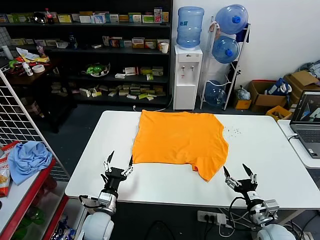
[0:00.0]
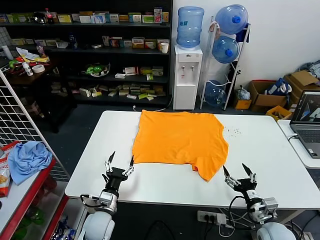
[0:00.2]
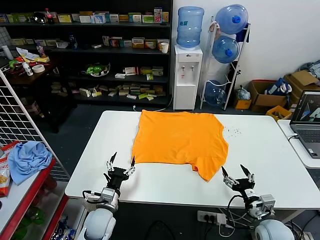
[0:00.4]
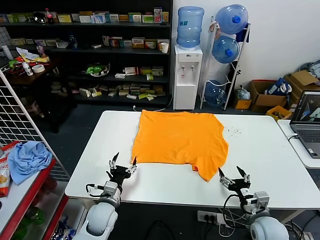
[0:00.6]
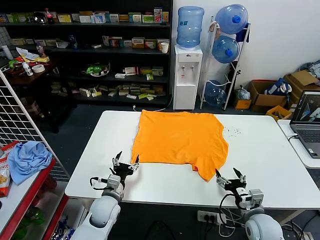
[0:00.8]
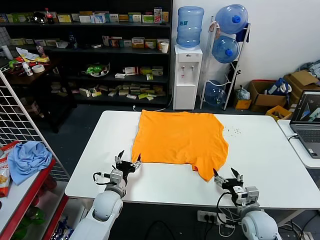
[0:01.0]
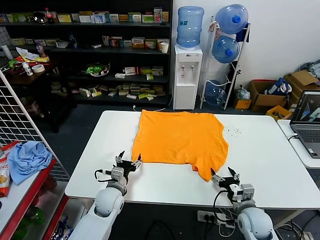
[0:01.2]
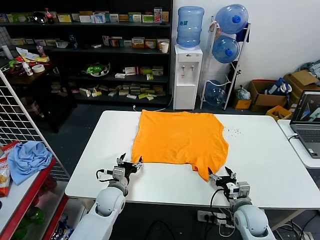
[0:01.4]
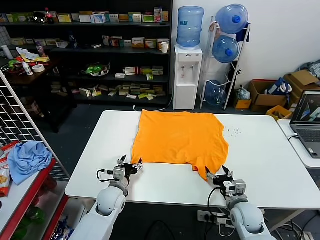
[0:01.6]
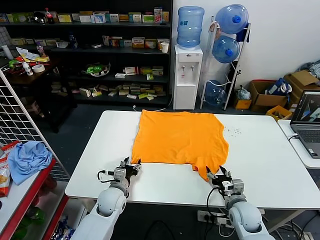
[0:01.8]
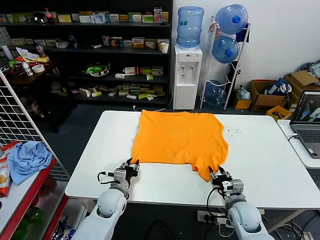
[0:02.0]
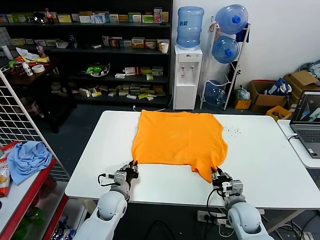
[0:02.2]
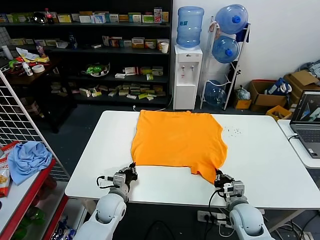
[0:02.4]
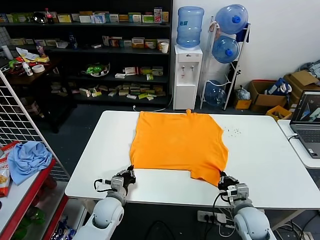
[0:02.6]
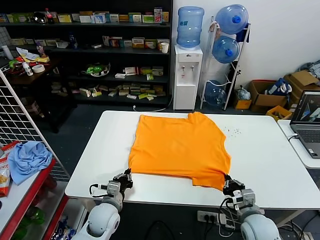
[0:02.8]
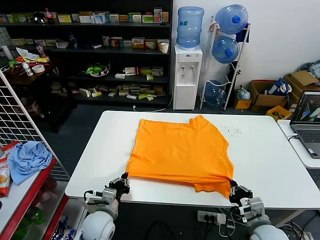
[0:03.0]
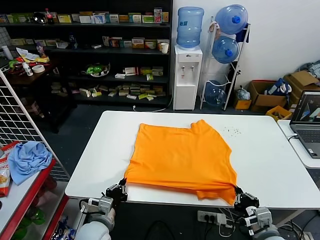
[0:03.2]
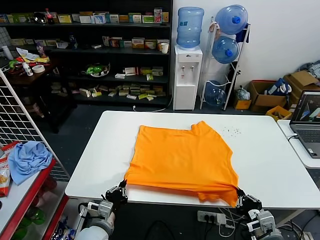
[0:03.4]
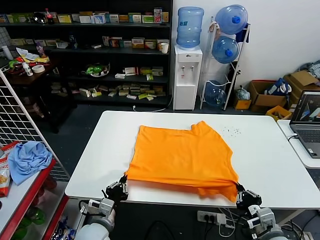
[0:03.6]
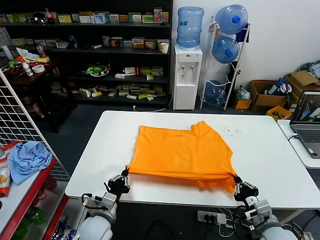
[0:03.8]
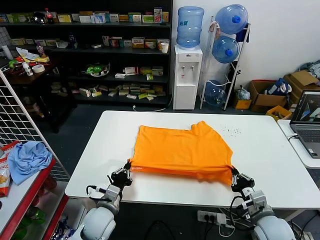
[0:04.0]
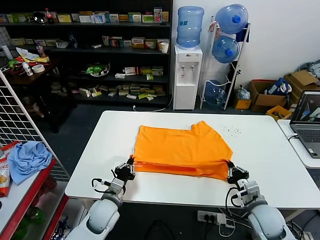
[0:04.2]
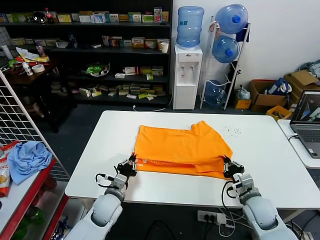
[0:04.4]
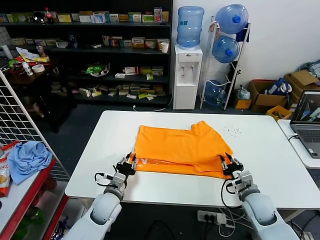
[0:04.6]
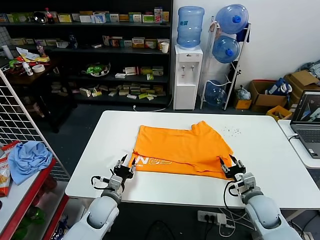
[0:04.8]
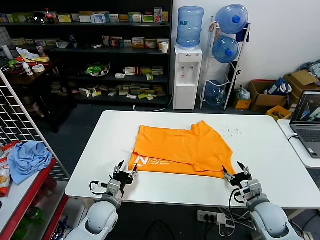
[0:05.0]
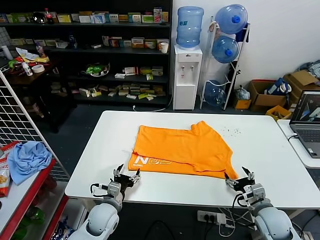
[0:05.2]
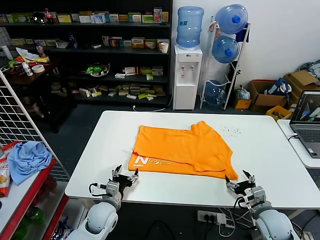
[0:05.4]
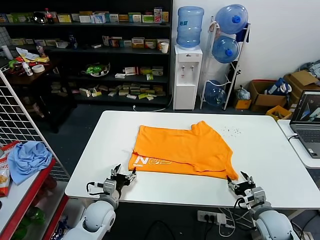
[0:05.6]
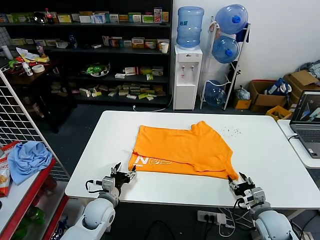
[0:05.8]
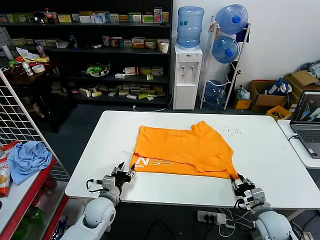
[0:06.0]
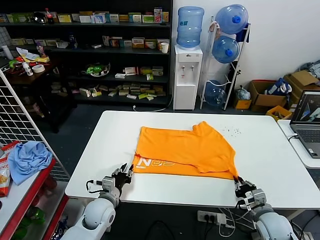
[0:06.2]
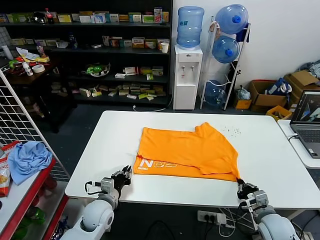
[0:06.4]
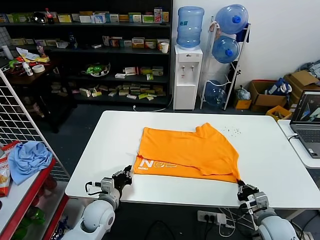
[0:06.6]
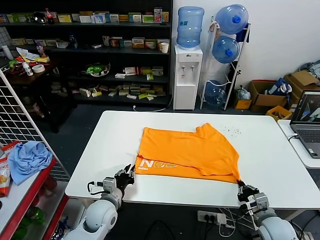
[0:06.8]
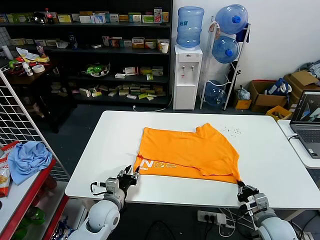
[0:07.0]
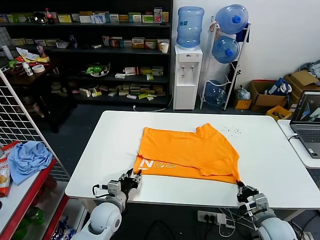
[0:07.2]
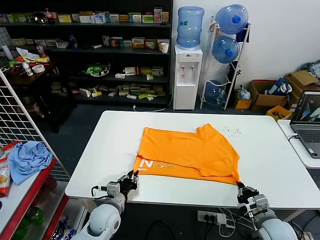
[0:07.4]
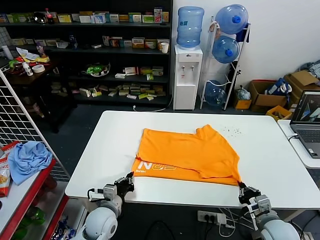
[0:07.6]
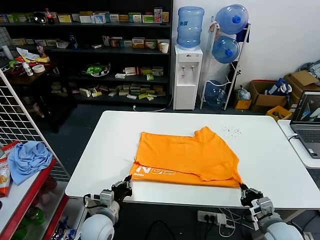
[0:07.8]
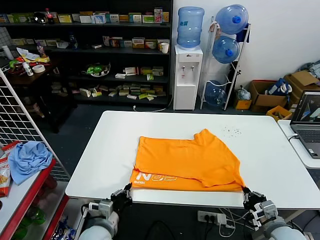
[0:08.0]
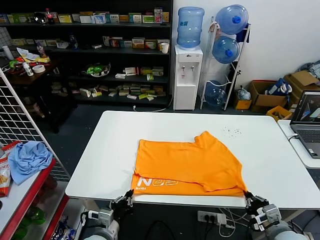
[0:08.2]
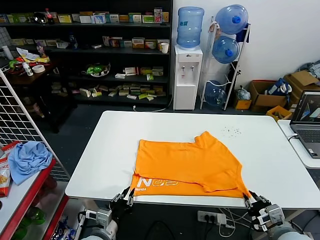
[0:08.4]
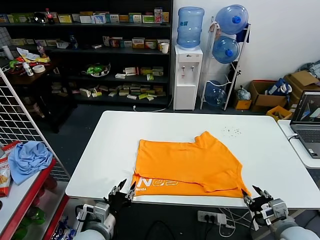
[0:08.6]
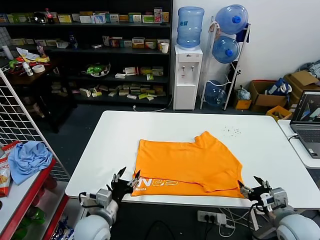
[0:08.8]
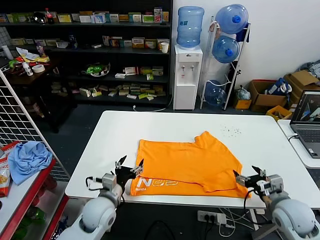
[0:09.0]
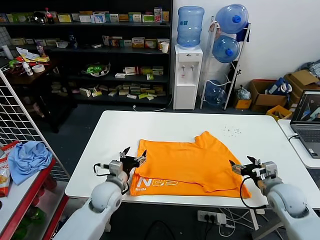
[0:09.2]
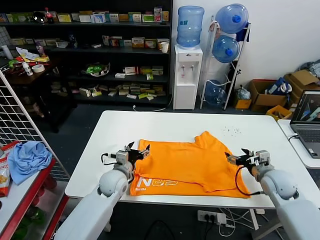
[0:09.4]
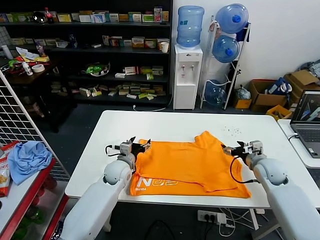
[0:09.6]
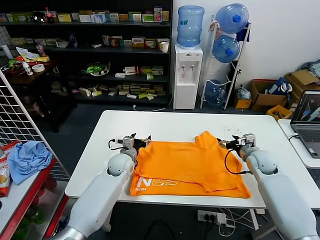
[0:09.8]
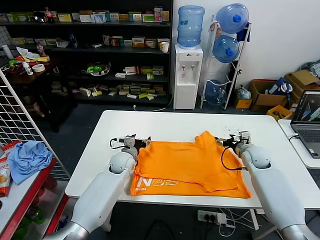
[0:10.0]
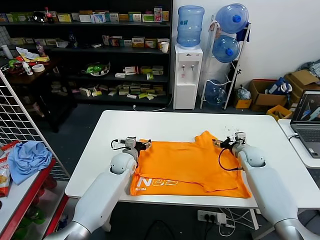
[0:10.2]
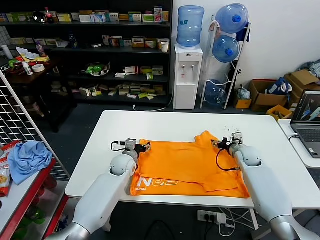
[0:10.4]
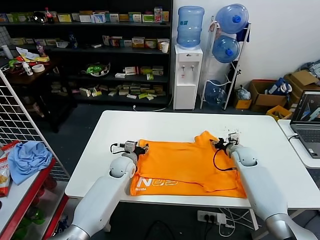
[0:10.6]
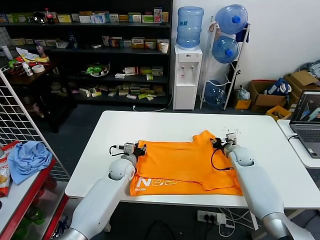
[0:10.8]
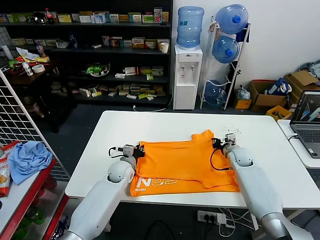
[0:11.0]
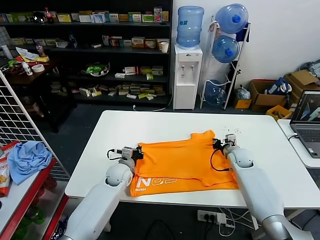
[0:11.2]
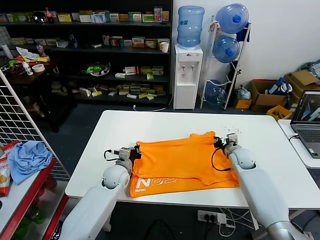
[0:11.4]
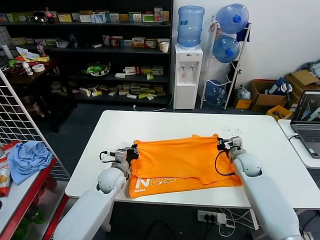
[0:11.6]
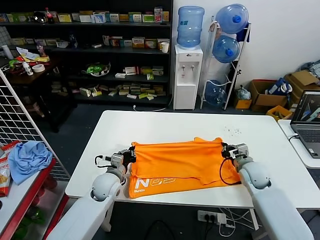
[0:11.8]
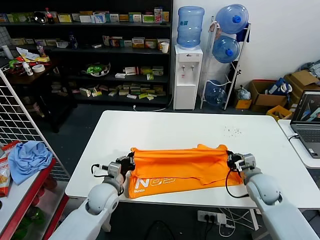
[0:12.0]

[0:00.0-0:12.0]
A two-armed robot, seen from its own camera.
Task of the whole recording: fold and organize the clothes.
Step, 0:00.0 to 0:02.4: use both grippers simultaneously to clamp the lower edge of the clothing fabric.
Step, 0:02.6 to 0:05.0: use both grippers to drag the lower edge of the fabric forward and fold it over the upper edge.
Step, 0:05.2 to 0:08.6: Drag the clothes downward with both gripper.
Step, 0:08.8 to 0:11.2: use both grippers simultaneously to clamp the upper edge of the clothing fabric.
0:01.6 to 0:03.0: The right gripper shifts roughly 15 cm backward and upward, and closes. Meanwhile the left gripper travels backward by approximately 10 cm, and closes.
0:03.0 to 0:04.4: The right gripper is displaced forward by approximately 10 cm. Meanwhile the left gripper shifts some 5 cm forward.
0:04.4 to 0:06.0: The left gripper opens up; the right gripper moves backward, roughly 5 cm, and opens, then closes again.
0:06.0 to 0:07.6: The left gripper closes.
0:07.6 to 0:09.0: Both grippers move upward, some 5 cm. The left gripper travels backward and back again, about 10 cm each way, and opens its fingers. The right gripper opens.
0:09.0 to 0:10.4: The grippers both shift forward by approximately 20 cm.
0:10.4 to 0:12.0: Both grippers move backward, some 15 cm. The left gripper closes; the right gripper closes.

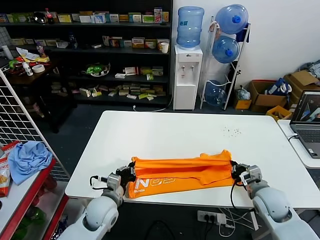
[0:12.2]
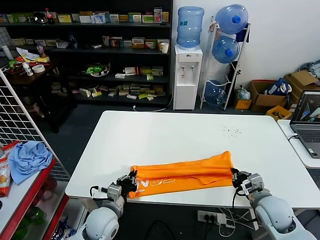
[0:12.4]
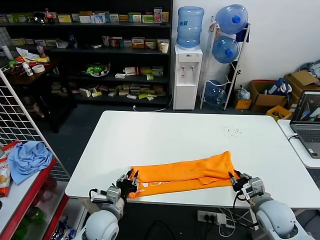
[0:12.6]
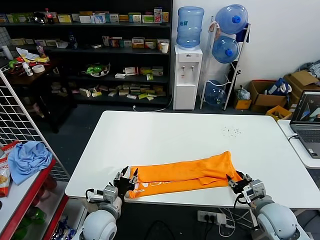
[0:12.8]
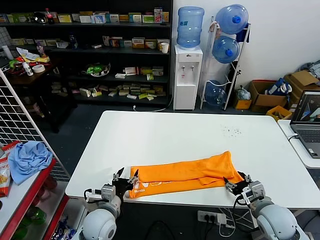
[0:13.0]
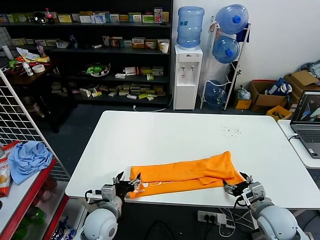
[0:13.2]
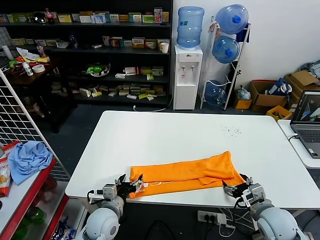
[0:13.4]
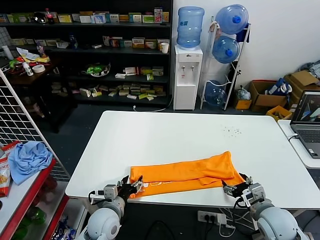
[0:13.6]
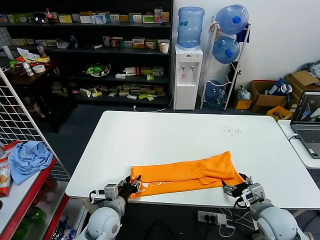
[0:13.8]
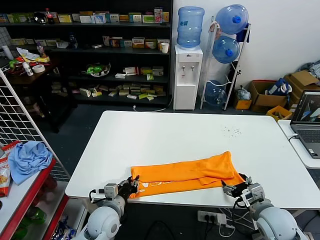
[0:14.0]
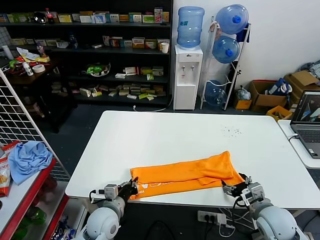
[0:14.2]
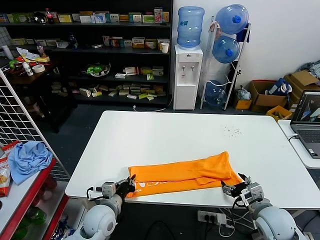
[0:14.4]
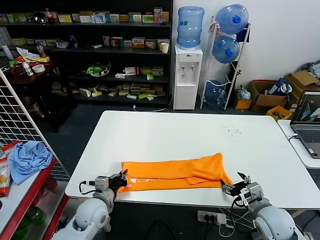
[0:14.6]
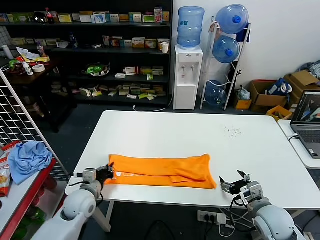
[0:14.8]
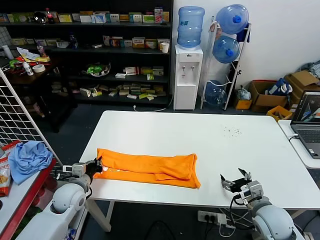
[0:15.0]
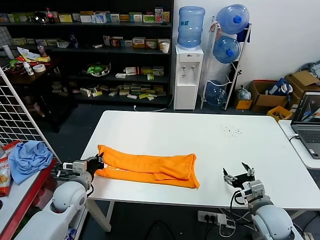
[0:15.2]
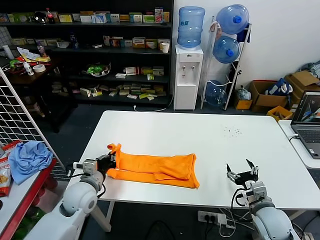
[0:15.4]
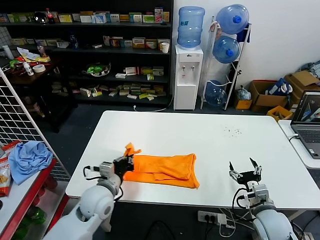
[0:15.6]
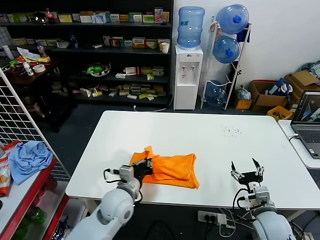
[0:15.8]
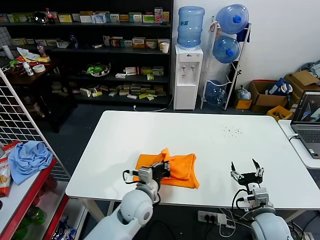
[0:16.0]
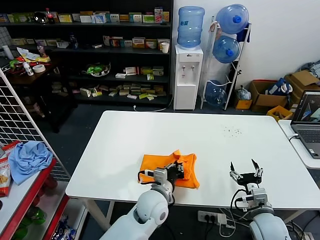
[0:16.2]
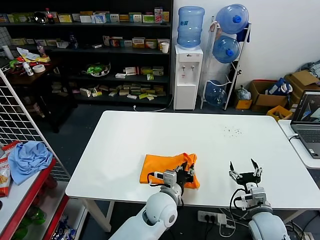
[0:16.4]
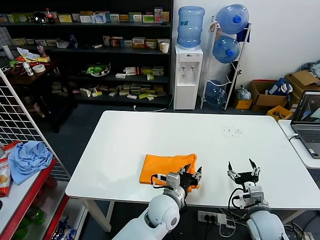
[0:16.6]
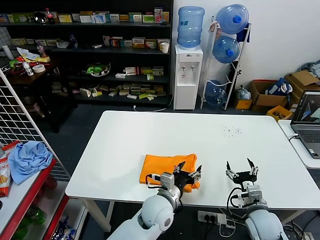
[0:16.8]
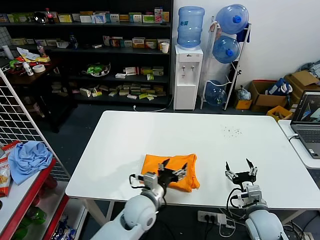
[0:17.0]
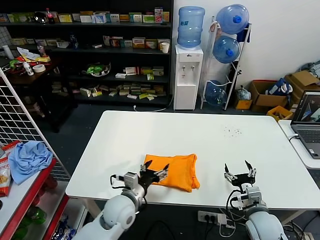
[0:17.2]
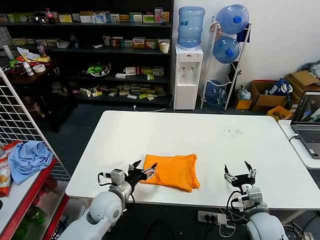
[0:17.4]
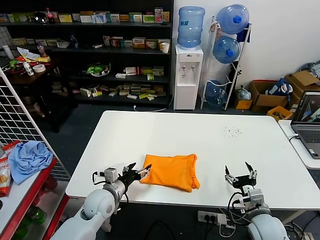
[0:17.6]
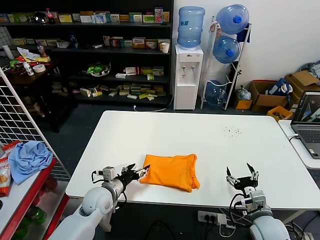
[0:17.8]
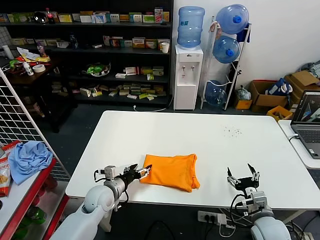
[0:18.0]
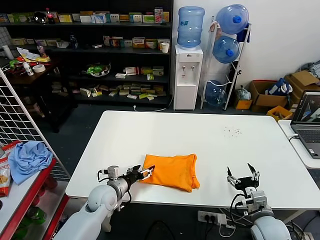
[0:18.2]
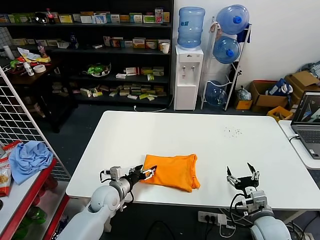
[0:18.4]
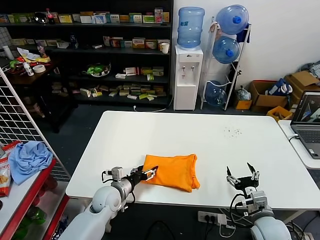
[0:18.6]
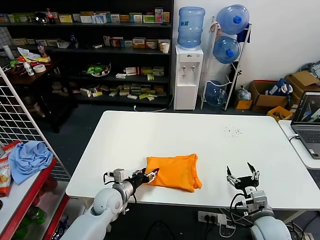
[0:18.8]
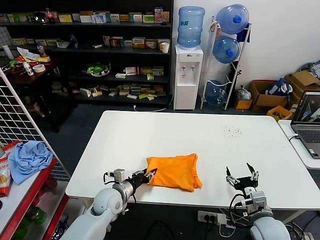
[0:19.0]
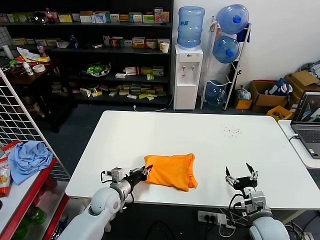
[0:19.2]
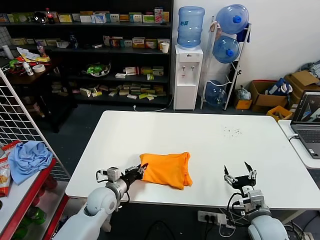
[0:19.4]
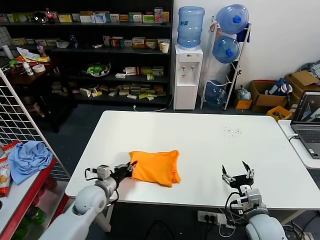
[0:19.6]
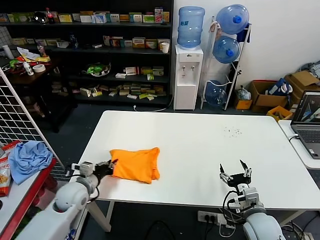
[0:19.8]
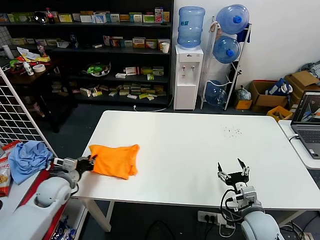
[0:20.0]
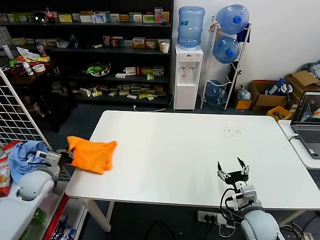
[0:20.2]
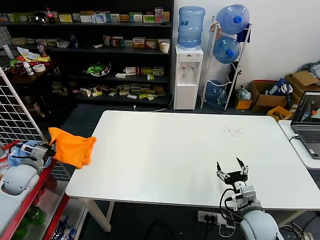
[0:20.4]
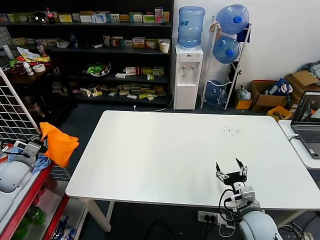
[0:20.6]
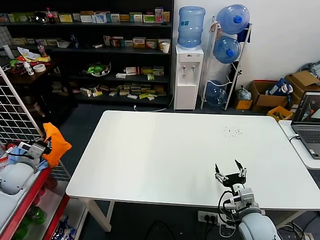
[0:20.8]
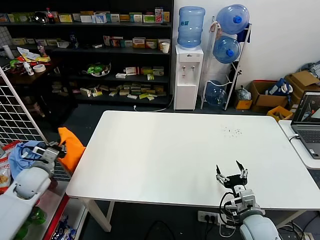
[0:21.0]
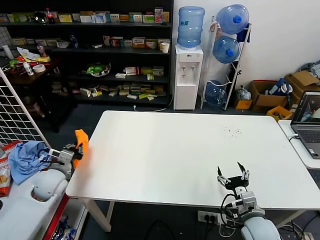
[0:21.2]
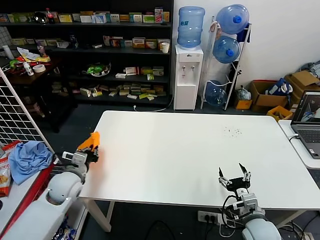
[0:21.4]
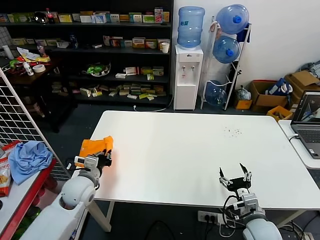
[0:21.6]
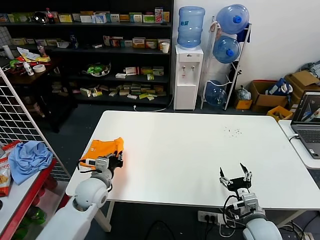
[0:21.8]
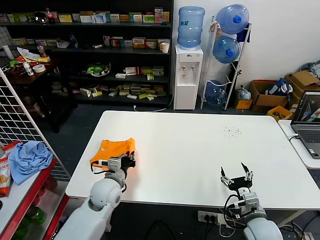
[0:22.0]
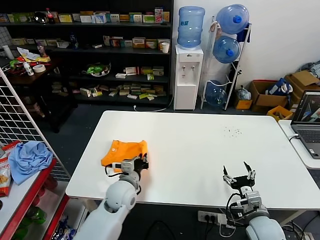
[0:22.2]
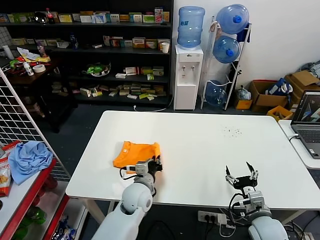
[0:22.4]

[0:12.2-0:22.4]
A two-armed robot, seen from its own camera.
Task of the whole recording: fold and organize the clothes.
Step, 0:12.2 to 0:13.2: use both grippers to drag the upper edge of the fabric backward and fold it over the lower edge.
Step, 0:13.4 to 0:14.4: use the left gripper to clamp the left edge of the fabric.
Step, 0:14.6 to 0:16.8: use the left gripper to drag the left edge of the fabric to the left and folds it over the right edge.
0:12.2 to 0:13.6: The left gripper opens up. Meanwhile the right gripper is displaced backward by about 5 cm, and opens its fingers.
0:13.6 to 0:15.2: The left gripper travels to the left and forward by approximately 15 cm, and closes its fingers.
0:15.2 to 0:16.6: The left gripper is displaced to the right by some 30 cm, and opens.
0:16.6 to 0:18.0: The left gripper travels to the left by approximately 25 cm, and opens up.
0:18.0 to 0:19.4: The left gripper closes up.
0:19.4 to 0:21.0: The left gripper moves to the left and upward, roughly 25 cm.
0:21.0 to 0:22.4: The left gripper shifts approximately 35 cm to the right.
